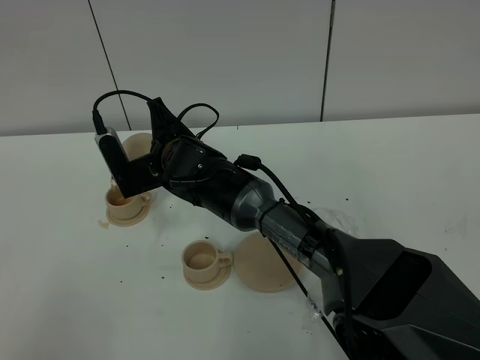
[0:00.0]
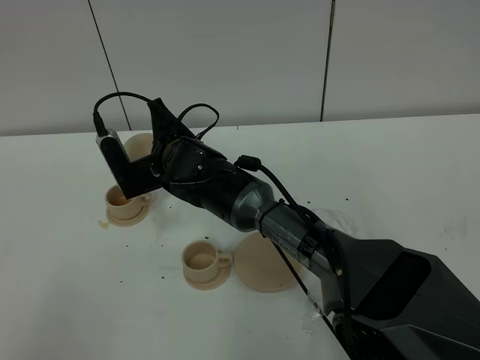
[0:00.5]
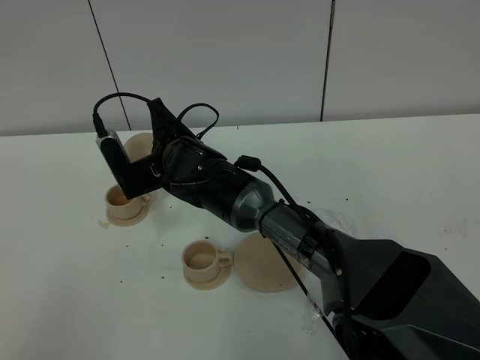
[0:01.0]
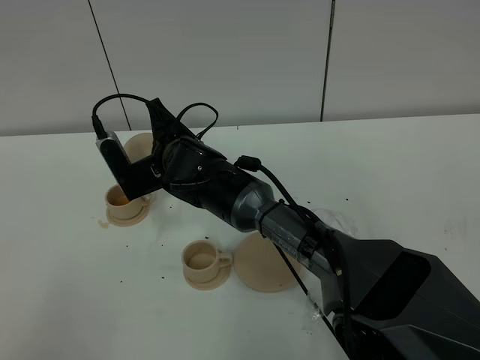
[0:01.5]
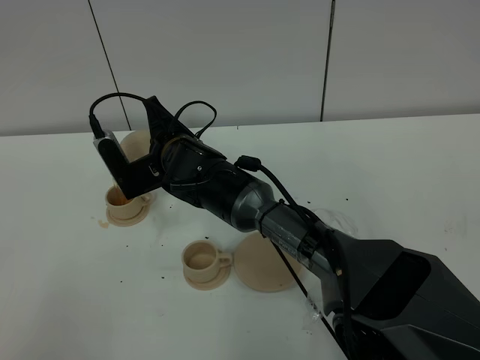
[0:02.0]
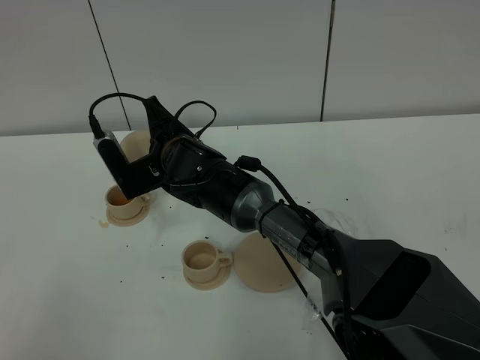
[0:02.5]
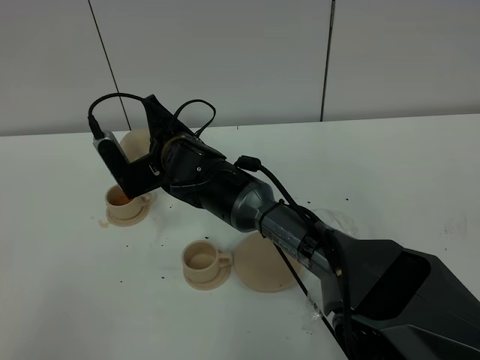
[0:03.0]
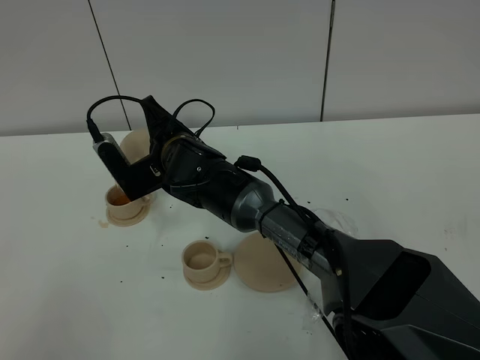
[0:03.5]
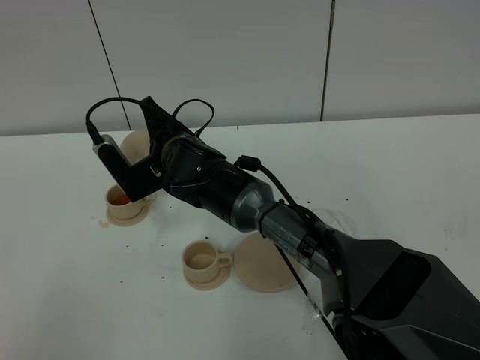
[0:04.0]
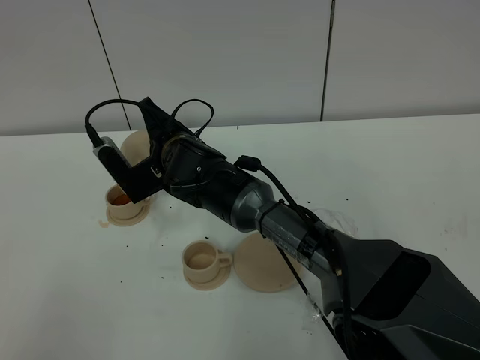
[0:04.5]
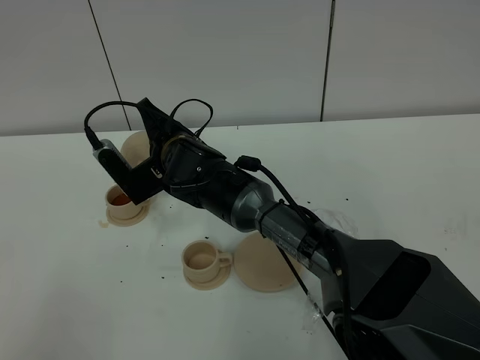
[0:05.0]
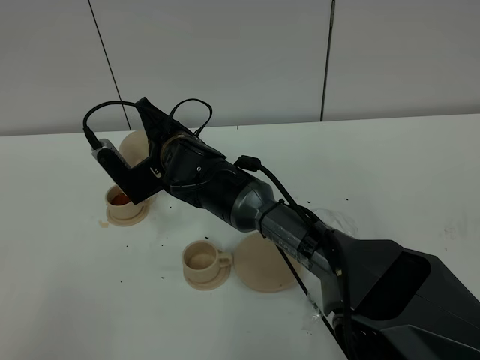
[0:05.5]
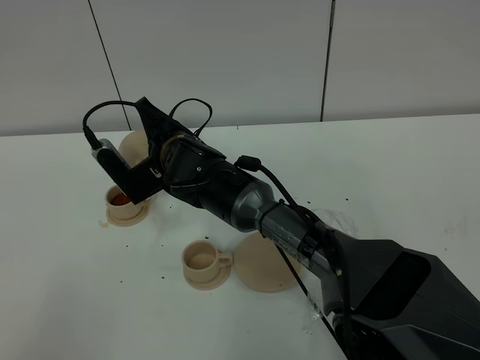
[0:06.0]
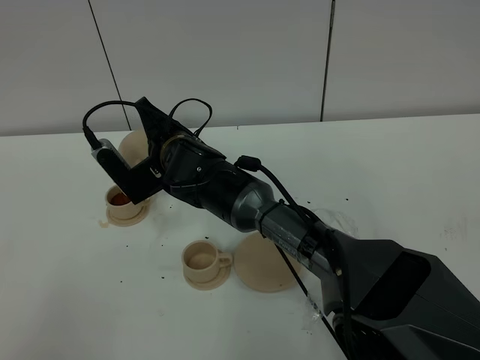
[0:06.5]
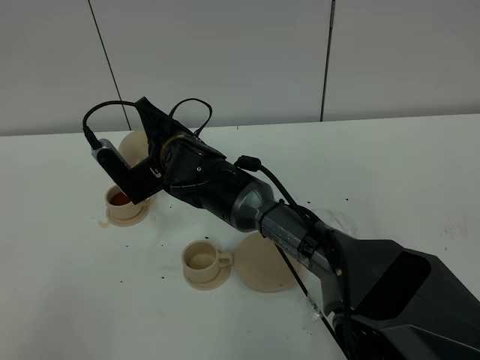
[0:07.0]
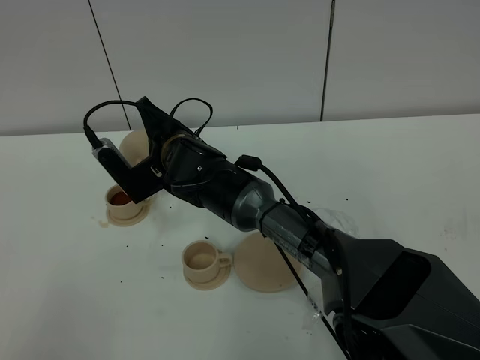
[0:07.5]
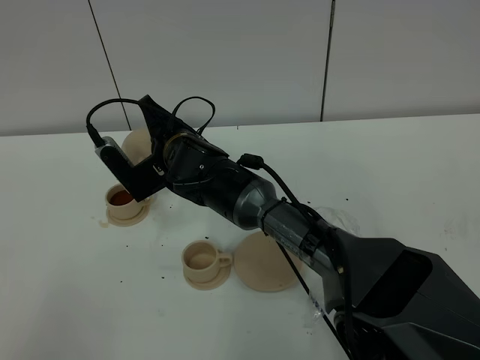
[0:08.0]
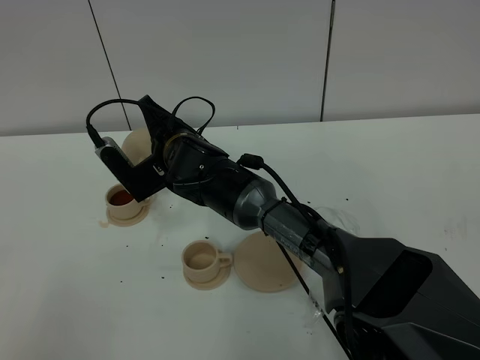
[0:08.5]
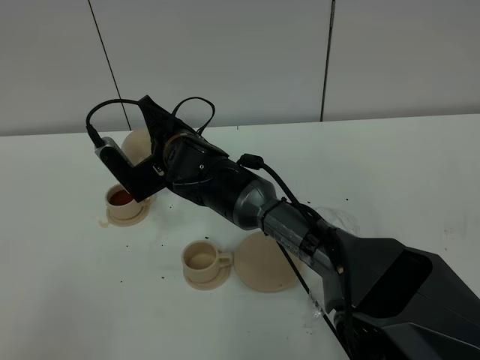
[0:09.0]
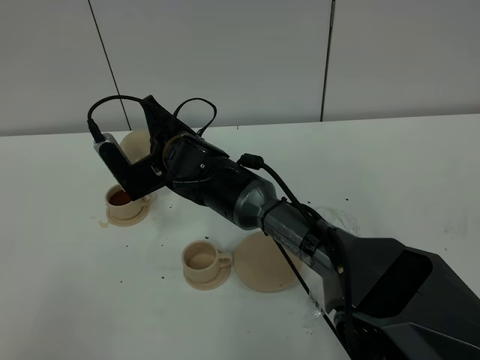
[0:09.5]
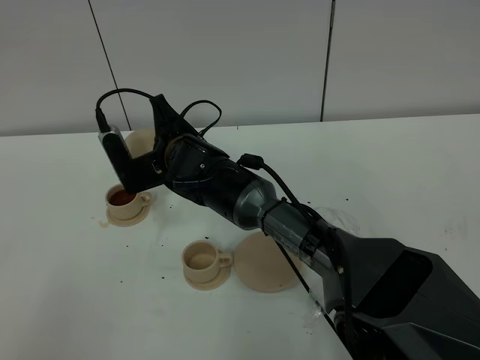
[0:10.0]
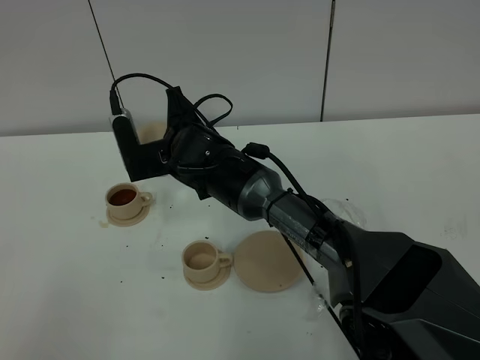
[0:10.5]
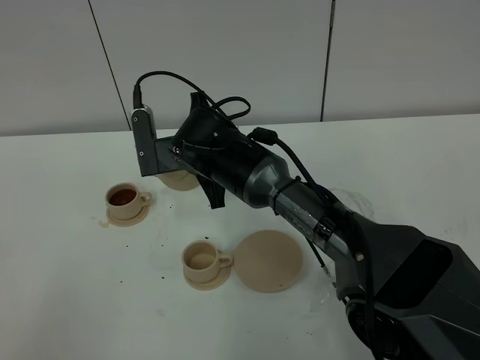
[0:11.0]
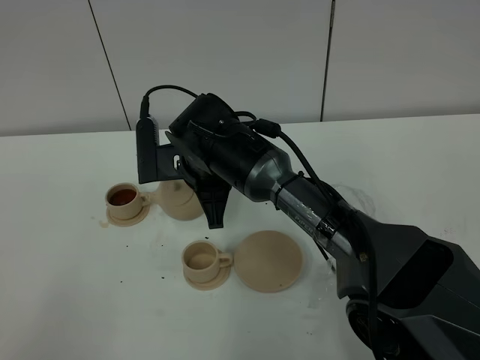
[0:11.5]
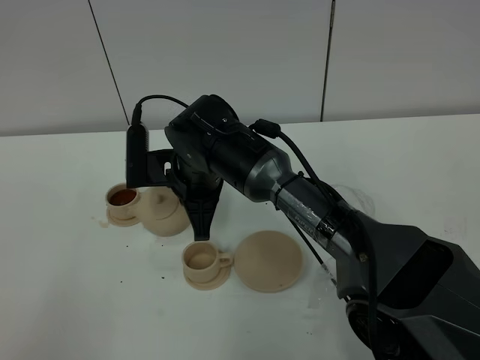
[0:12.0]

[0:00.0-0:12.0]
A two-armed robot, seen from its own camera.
Task of the whole recording: grasp the brown teapot and pour the tea into the two brown teacups one by one, put the brown teapot back in its original place.
Step, 0:00.0 to 0:09.5: Pour tea into the teacup with the right gripper.
0:00.0 to 0:02.0: Neither gripper changes place.
0:02.0 to 0:04.0: There are only small adjustments of the grippers.
0:04.0 to 0:08.0: The two grippers keep their place.
0:08.0 to 0:10.0: There are only small adjustments of the grippers.

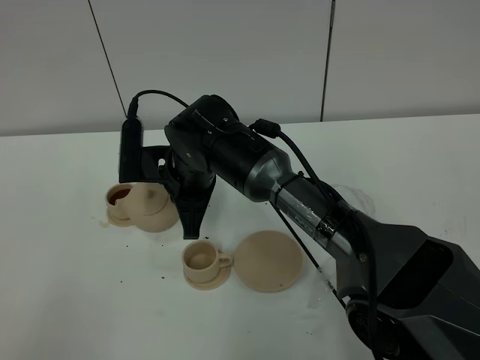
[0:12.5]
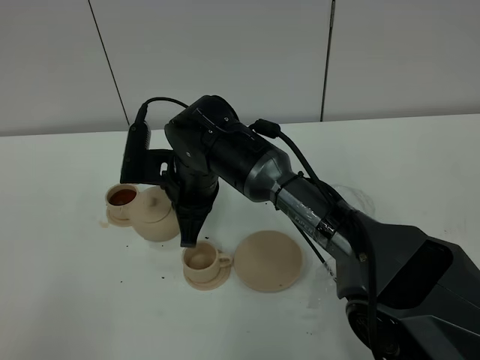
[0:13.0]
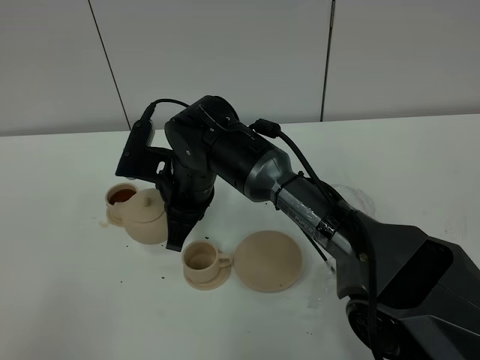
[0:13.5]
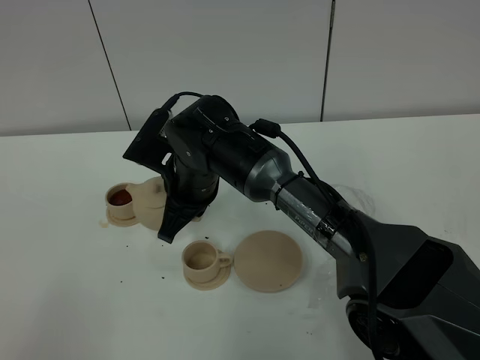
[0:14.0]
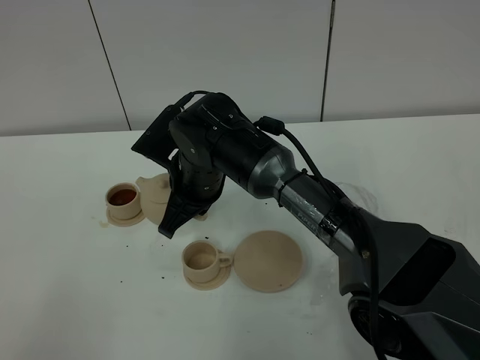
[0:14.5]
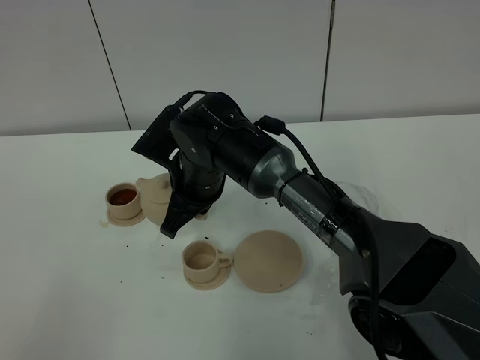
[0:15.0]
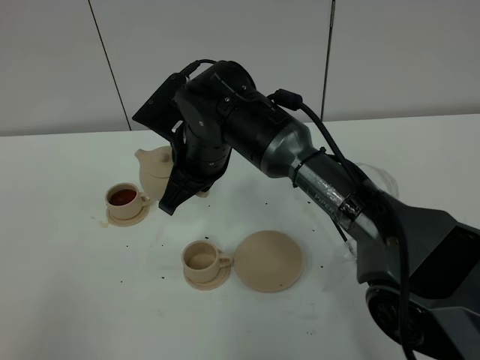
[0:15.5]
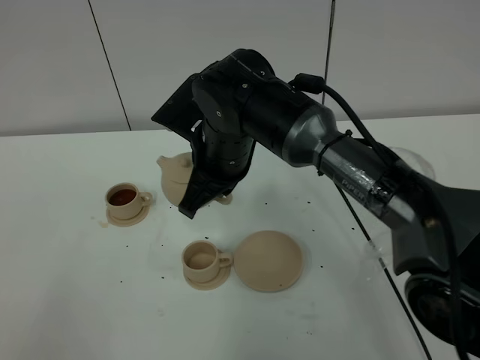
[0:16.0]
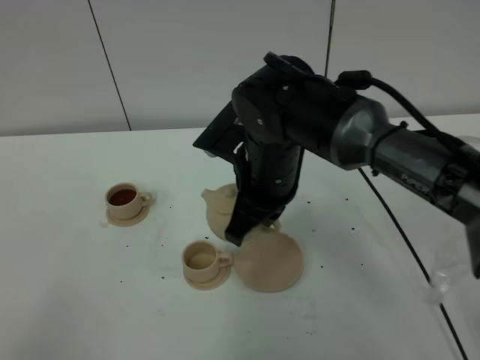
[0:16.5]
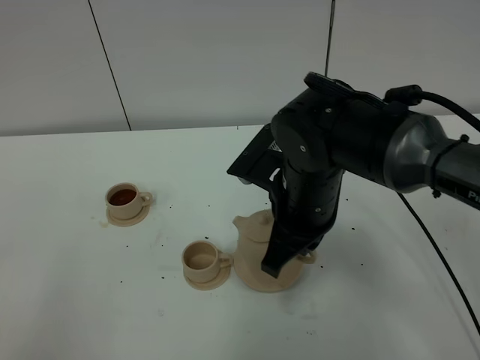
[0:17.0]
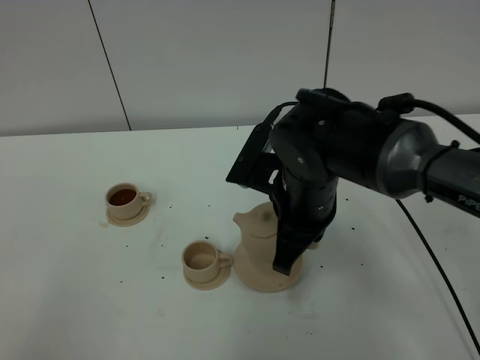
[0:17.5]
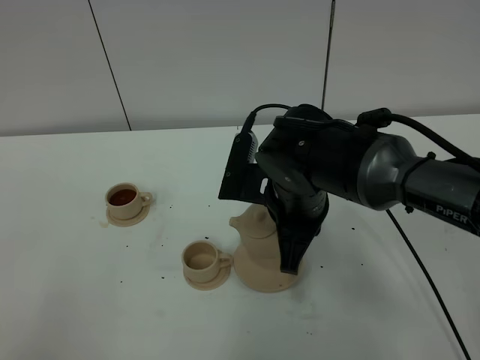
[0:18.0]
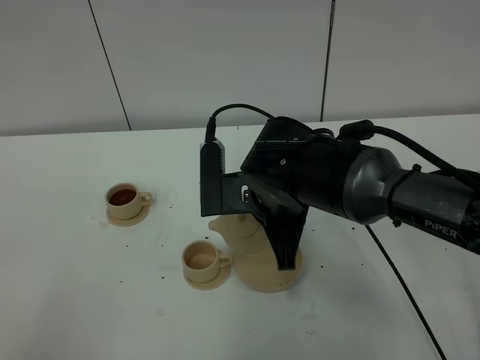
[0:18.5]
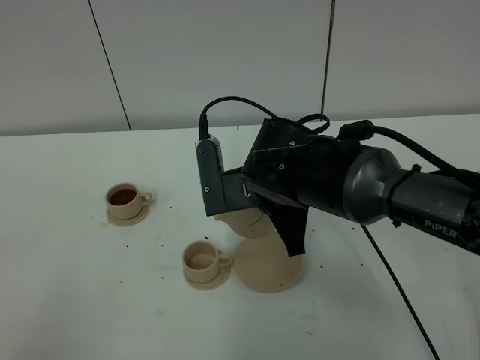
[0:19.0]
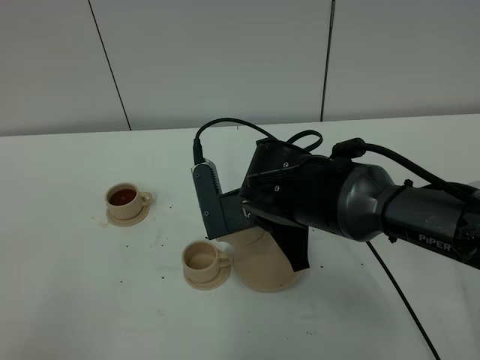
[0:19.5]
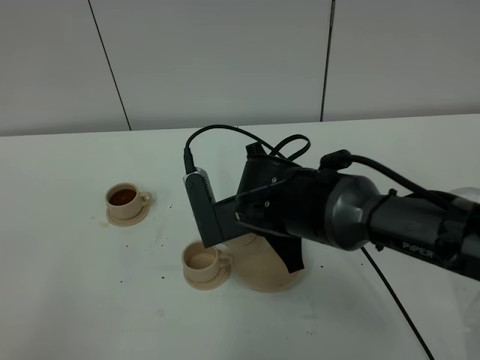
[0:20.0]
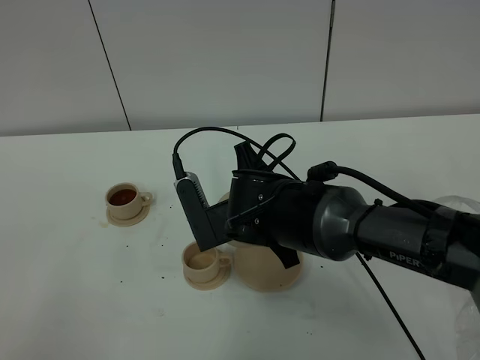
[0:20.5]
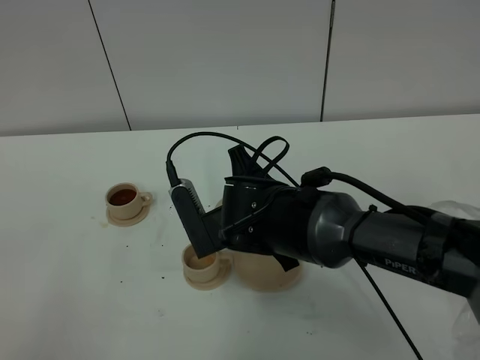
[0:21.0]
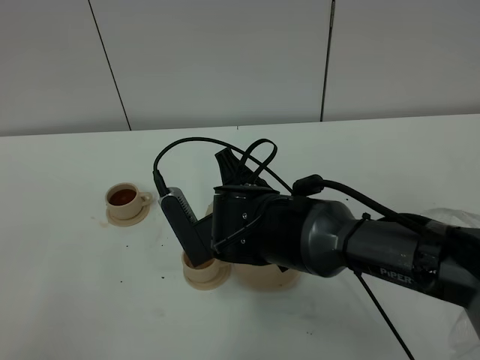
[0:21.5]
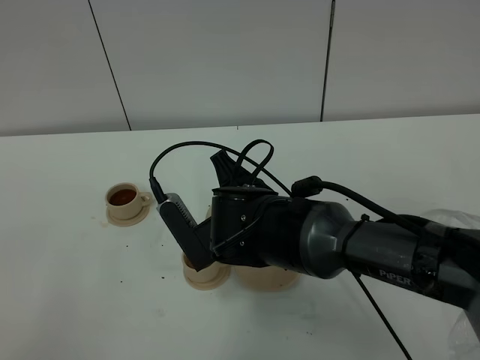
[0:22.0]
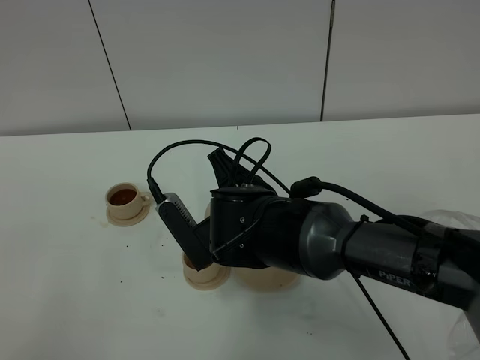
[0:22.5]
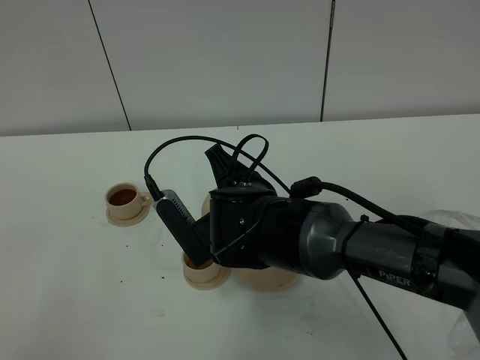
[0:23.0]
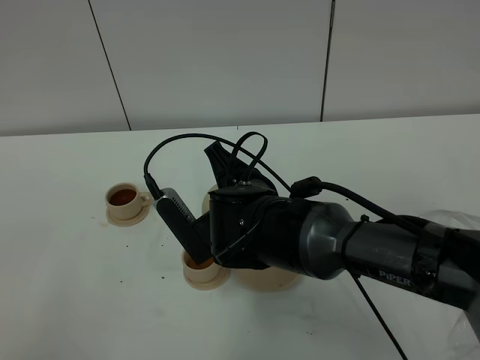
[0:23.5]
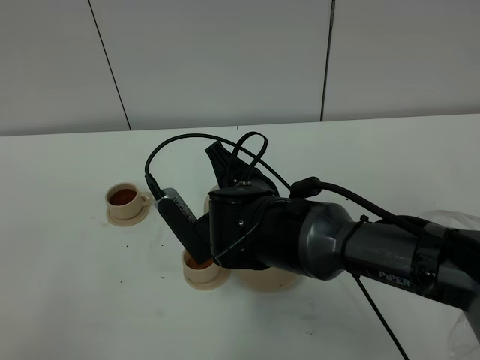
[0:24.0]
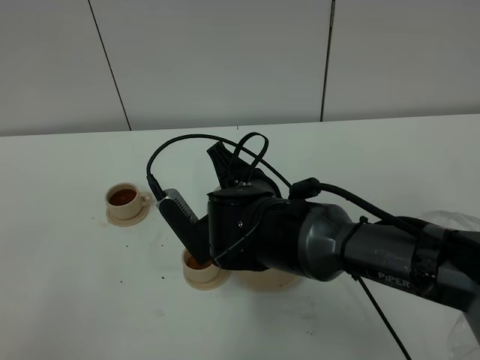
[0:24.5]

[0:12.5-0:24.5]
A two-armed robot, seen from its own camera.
Task of the whole recording: grasp the brown teapot and pour the tea into the two brown teacups one by one, put the brown teapot back in its original place.
0:14.5 to 0:16.5: The right gripper moves to the right and upward, approximately 10 cm.
0:20.5 to 0:22.5: The grippers move only a little.
0:22.5 to 0:24.5: Both grippers stay put.

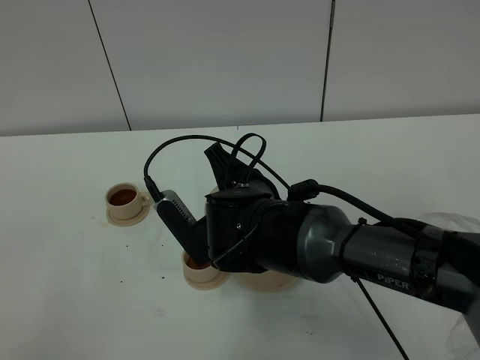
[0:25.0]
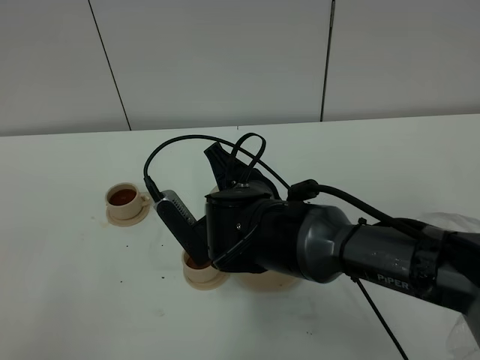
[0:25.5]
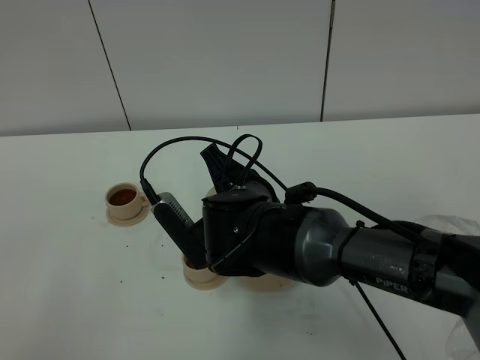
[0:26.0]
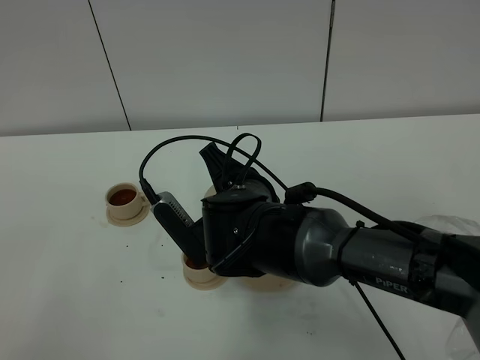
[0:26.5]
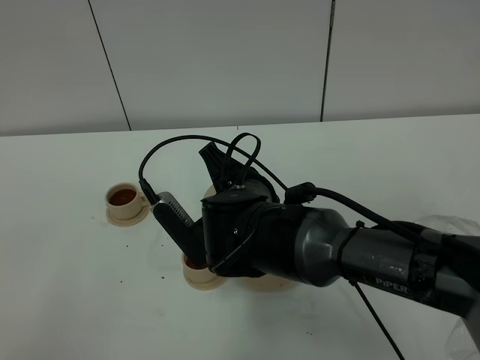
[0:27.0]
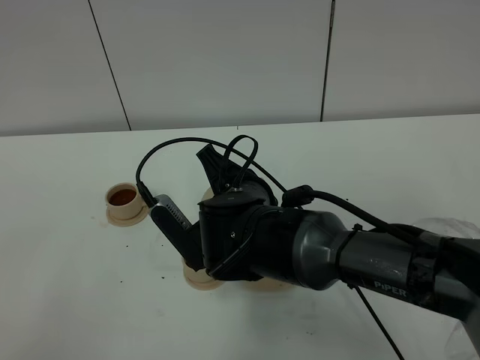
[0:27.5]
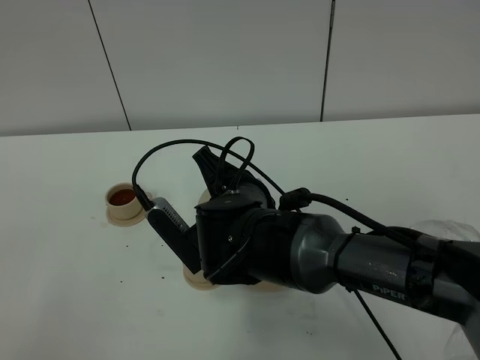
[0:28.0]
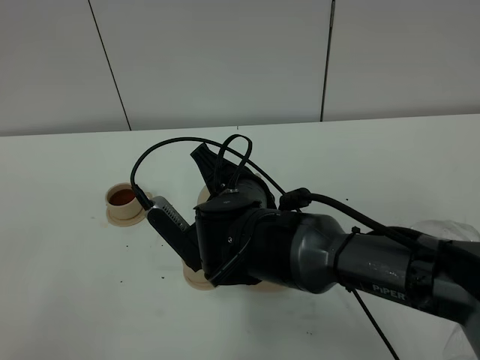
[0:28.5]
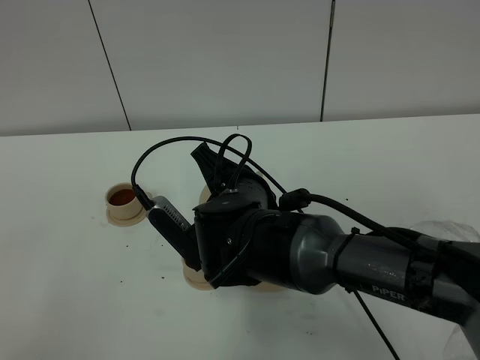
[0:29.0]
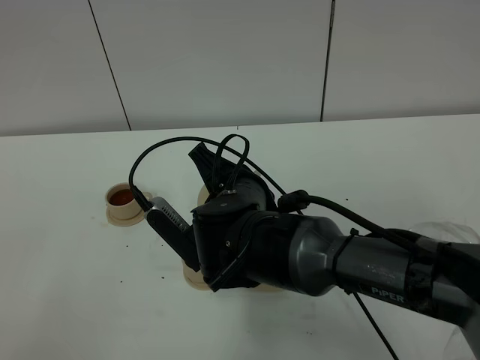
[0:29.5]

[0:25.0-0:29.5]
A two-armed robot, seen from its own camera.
Task of the whole recording: grasp the brown teapot and pour the tea into the two brown teacups one by one, put the brown teapot back in its original place.
0:25.0 to 0:27.0: The two grippers keep their place.
0:27.0 to 0:29.5: The grippers stay close to where they were, moving slightly.
